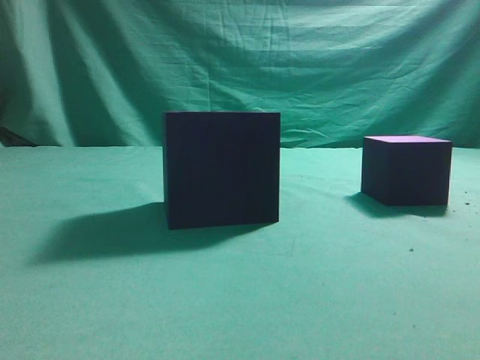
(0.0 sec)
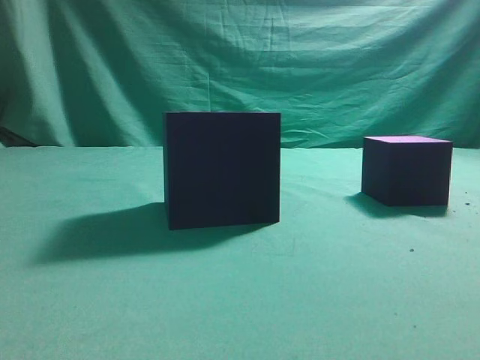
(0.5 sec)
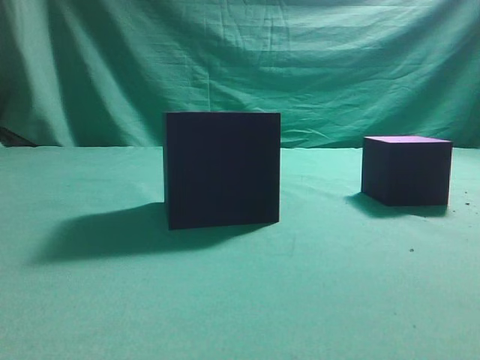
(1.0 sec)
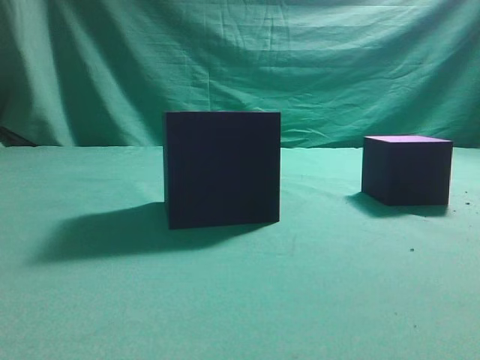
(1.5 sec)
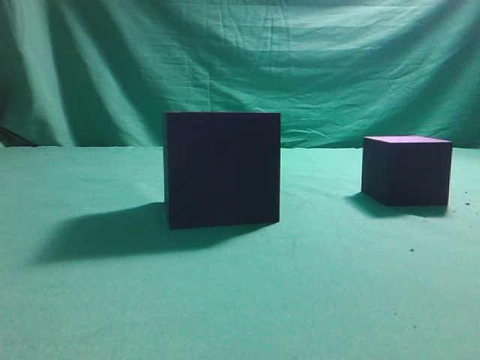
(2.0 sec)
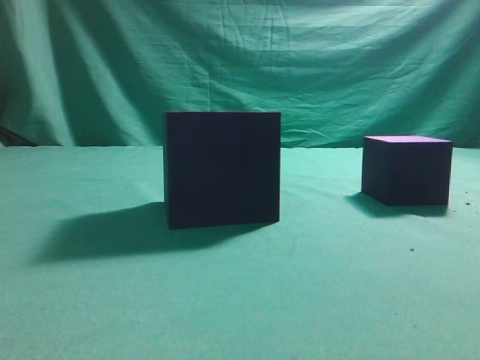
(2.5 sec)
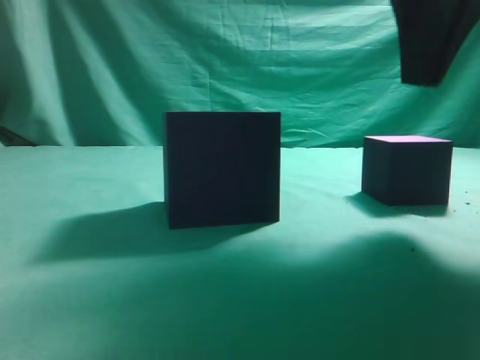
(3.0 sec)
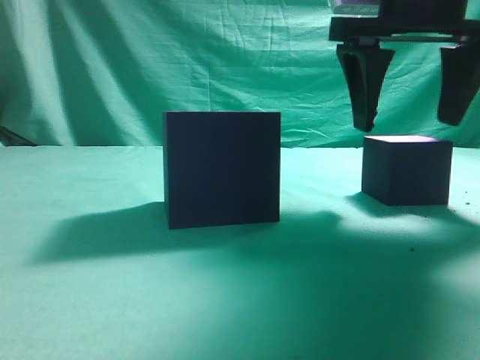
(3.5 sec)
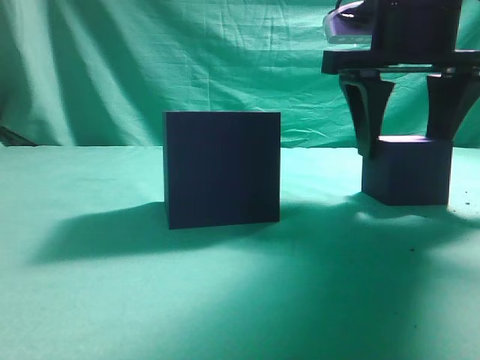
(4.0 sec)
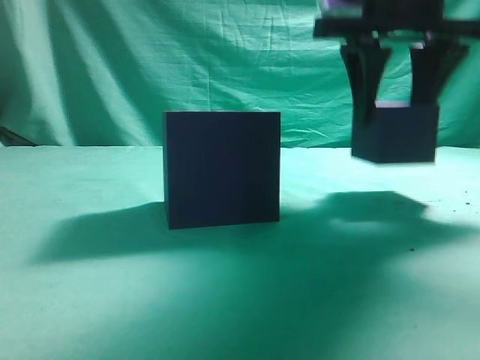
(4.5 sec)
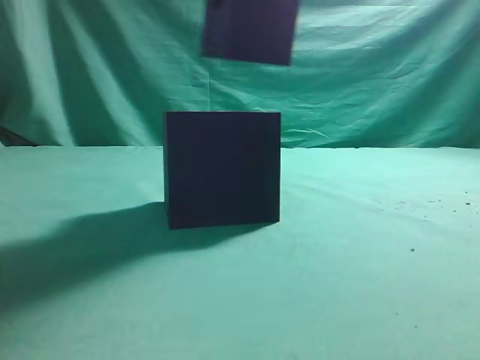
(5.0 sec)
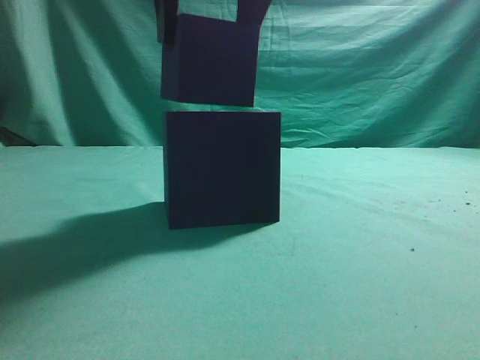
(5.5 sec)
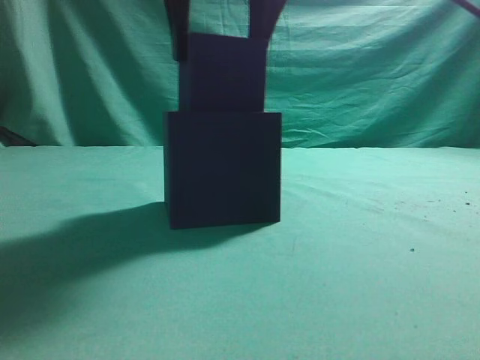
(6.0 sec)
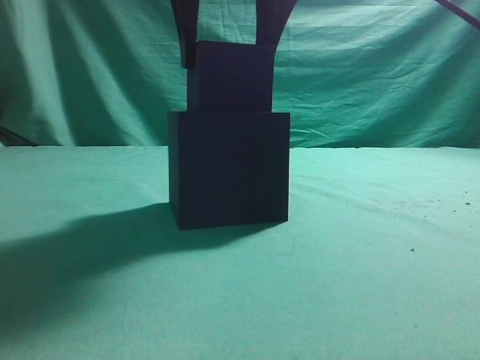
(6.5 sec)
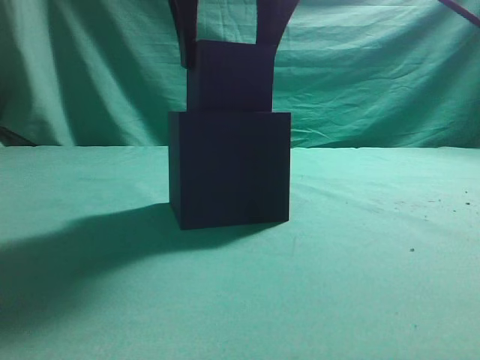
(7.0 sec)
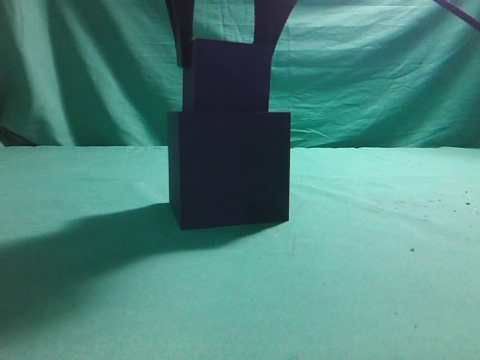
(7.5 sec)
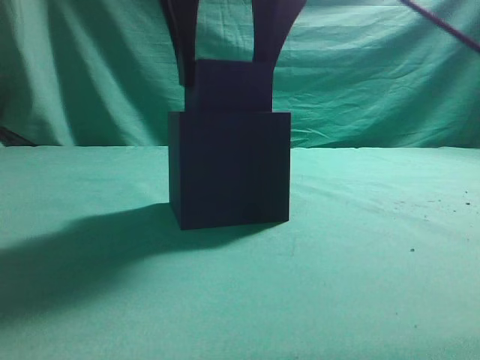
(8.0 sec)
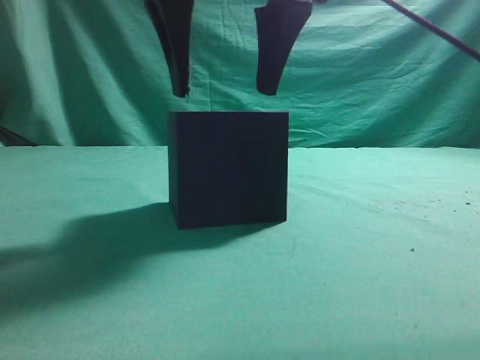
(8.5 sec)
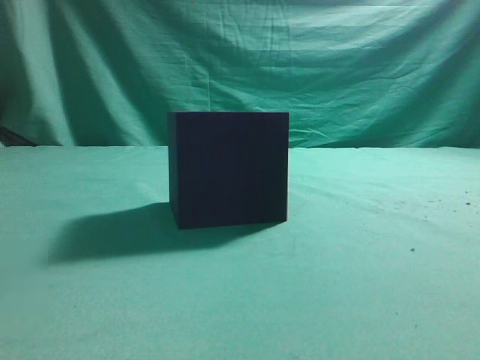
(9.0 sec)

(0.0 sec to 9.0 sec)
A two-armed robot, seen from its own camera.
Task of the whole recording: pick up the cube block and place it into the cube groove.
Step, 0.0 sec - 4.0 sec: Grasp the cube.
Step, 4.5 sec - 8.5 sec: Place cube into the cube-shaped recess.
2.0 sec - 4.5 sec: The right gripper is displaced forward and to the left by approximately 30 cm, and opens up.
4.5 sec - 7.0 sec: The right gripper travels to the left and backward by about 15 cm.
7.0 sec - 9.0 sec: The right gripper heads upward, covering about 5 cm.
